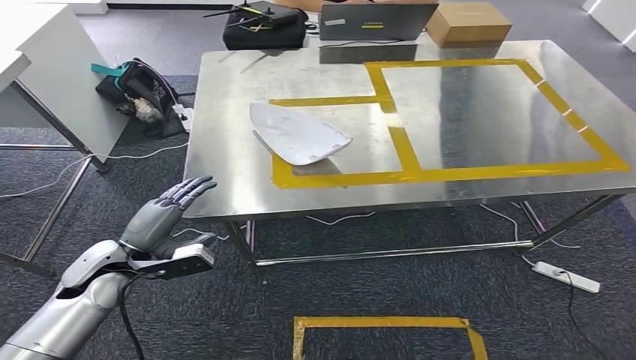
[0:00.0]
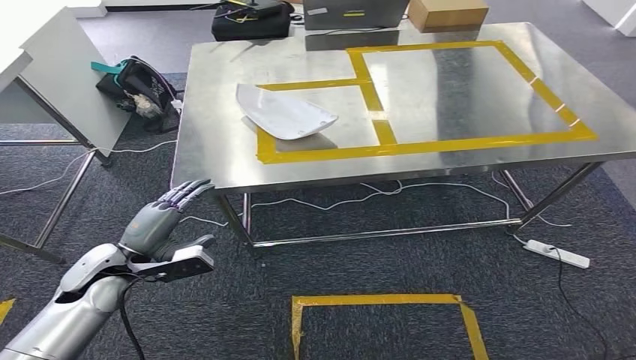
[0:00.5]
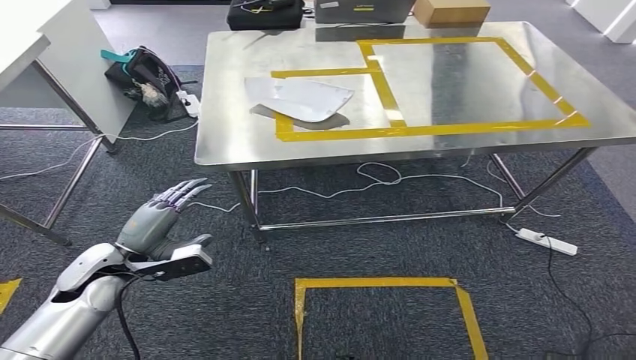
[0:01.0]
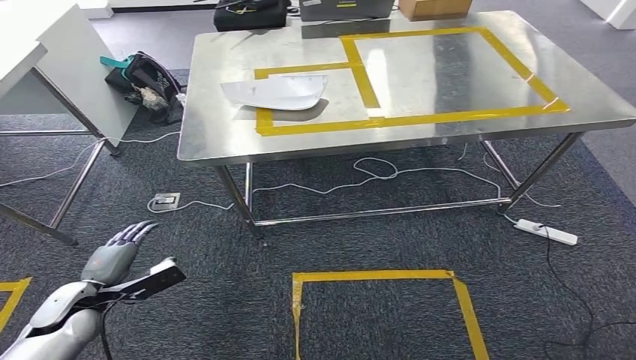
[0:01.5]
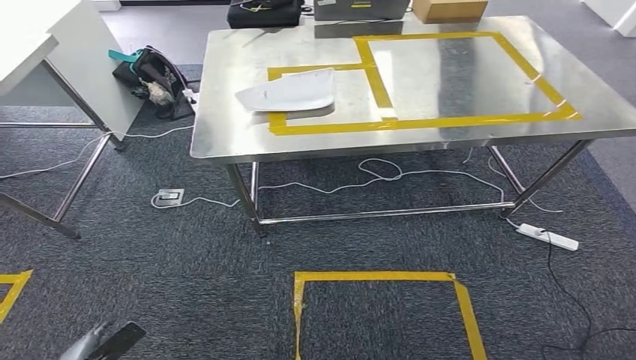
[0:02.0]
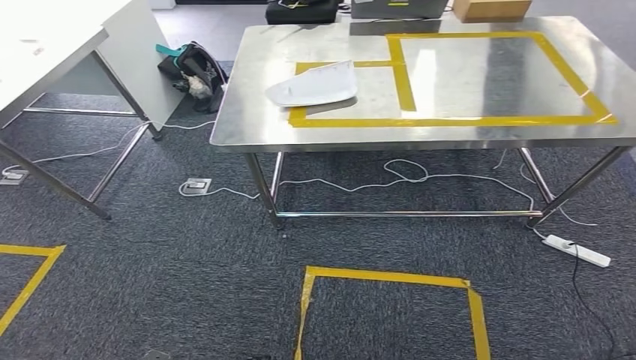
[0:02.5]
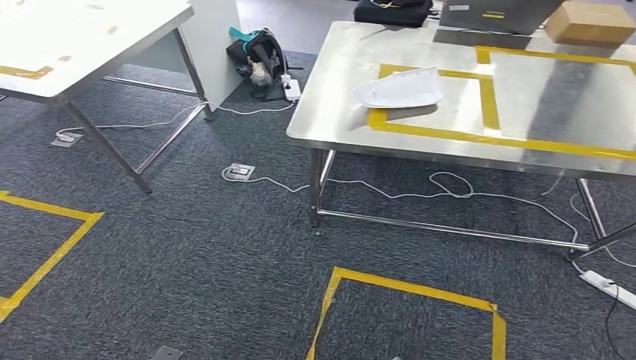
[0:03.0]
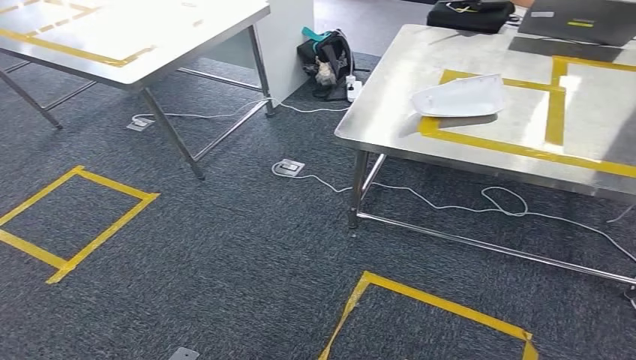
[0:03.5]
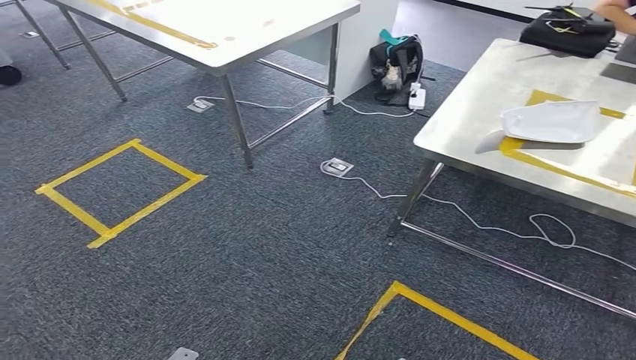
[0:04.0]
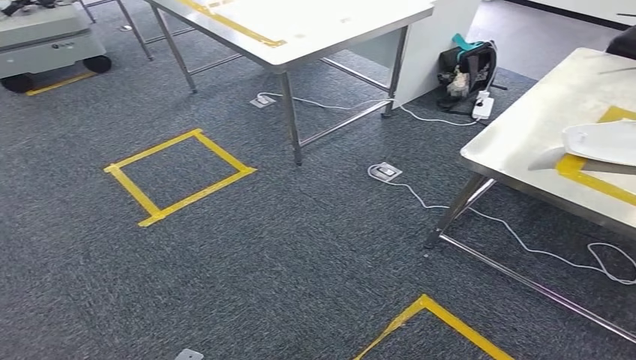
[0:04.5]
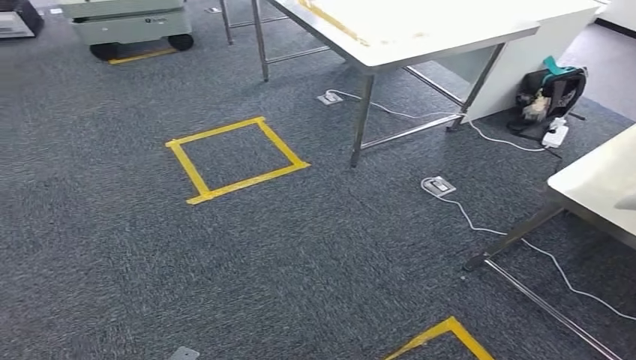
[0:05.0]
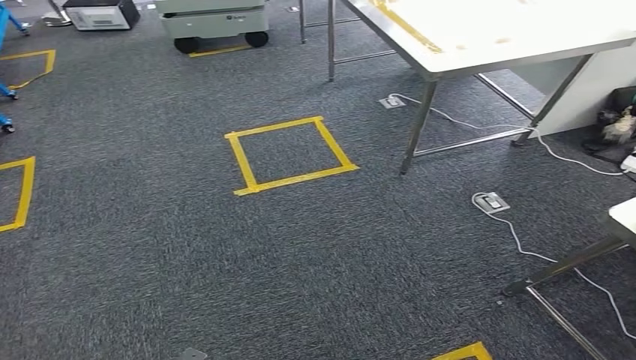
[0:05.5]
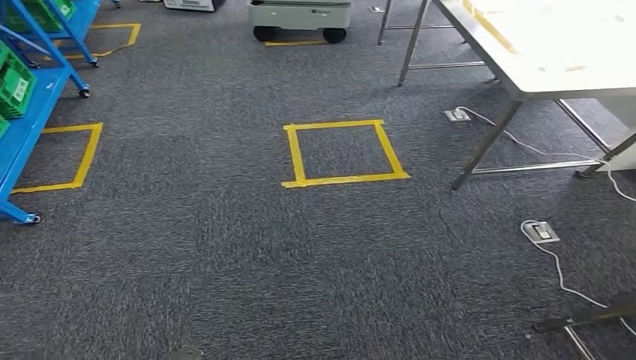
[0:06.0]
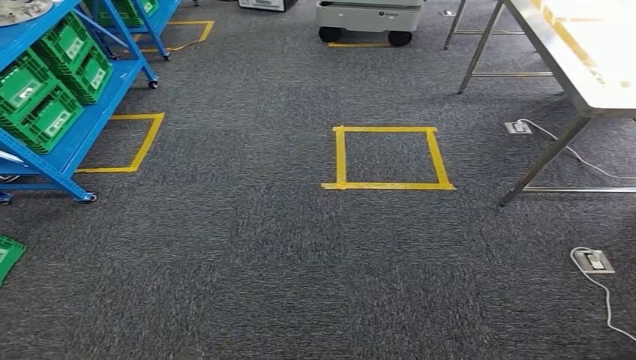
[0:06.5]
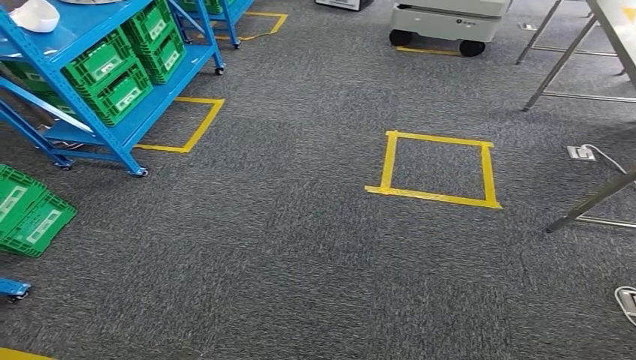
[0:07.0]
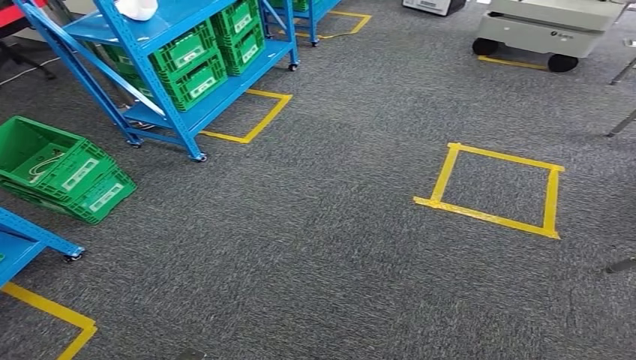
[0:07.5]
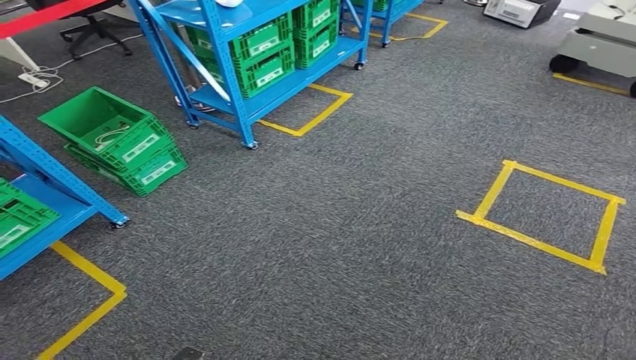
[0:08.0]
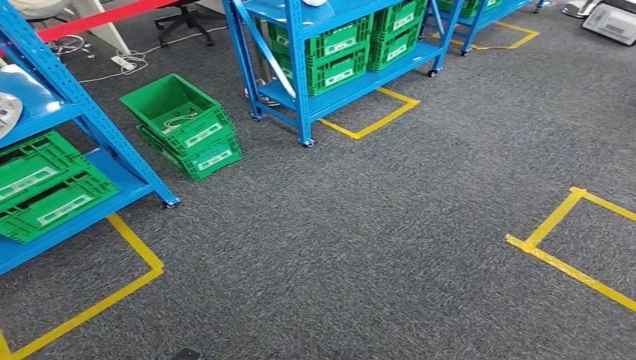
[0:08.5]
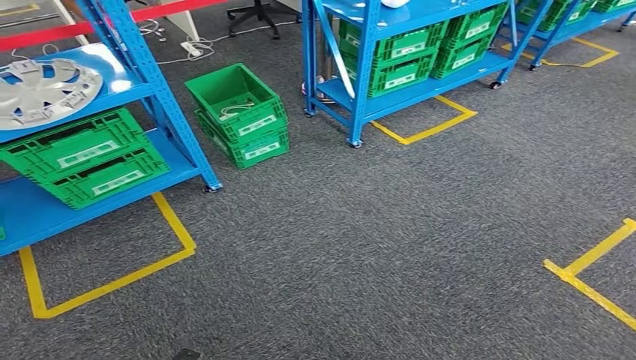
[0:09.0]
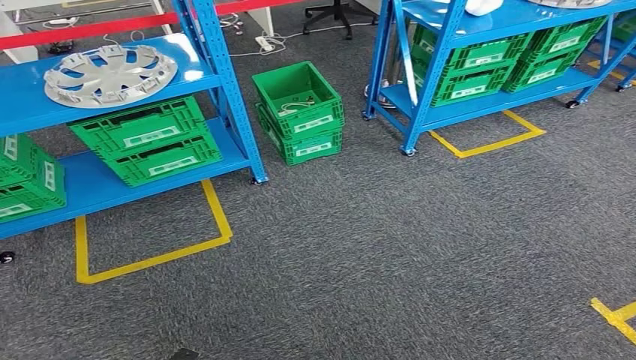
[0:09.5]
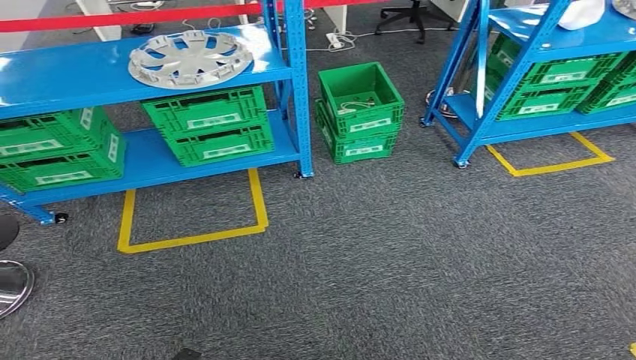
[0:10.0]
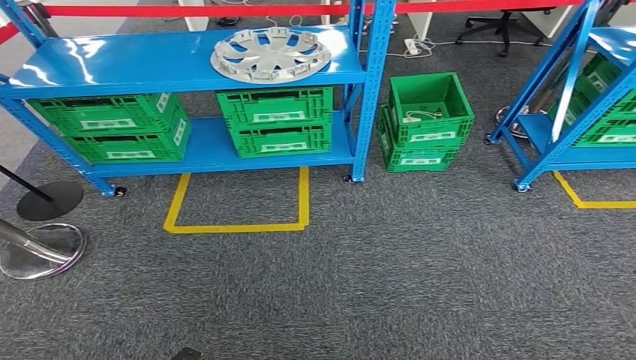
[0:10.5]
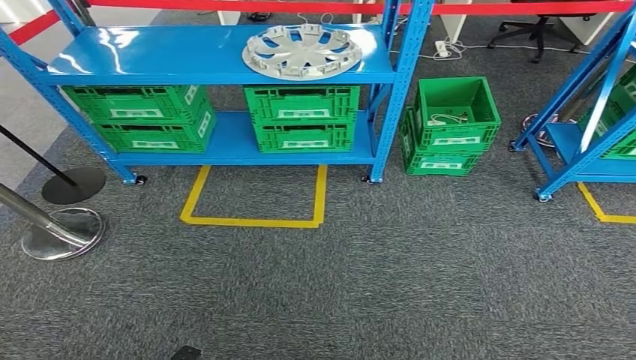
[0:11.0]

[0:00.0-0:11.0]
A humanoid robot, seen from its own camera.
Step, 0:00.0 to 0:11.0: Return to the initial position at the workbench.
